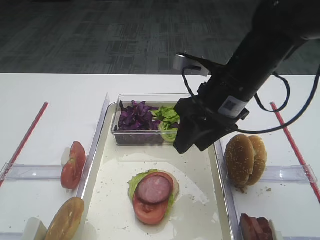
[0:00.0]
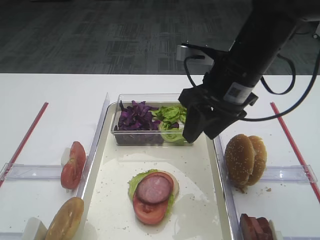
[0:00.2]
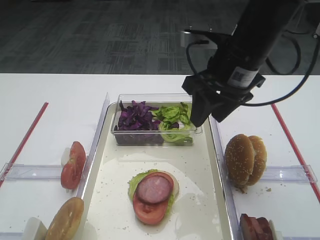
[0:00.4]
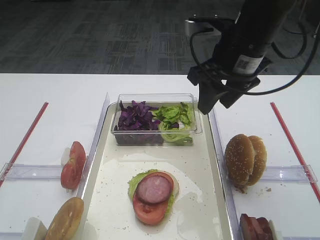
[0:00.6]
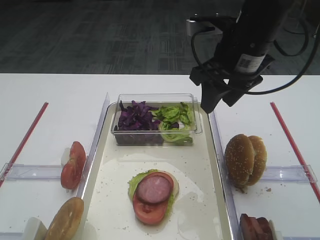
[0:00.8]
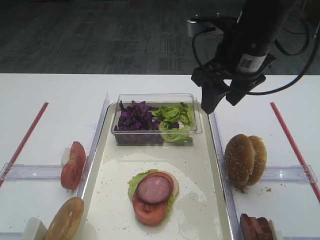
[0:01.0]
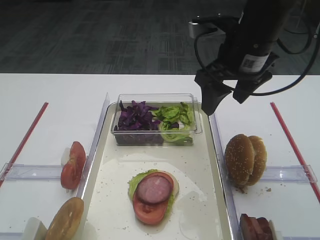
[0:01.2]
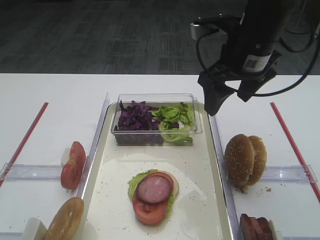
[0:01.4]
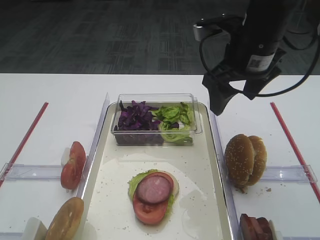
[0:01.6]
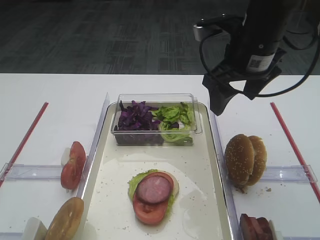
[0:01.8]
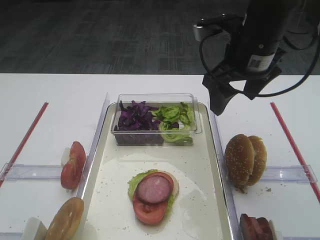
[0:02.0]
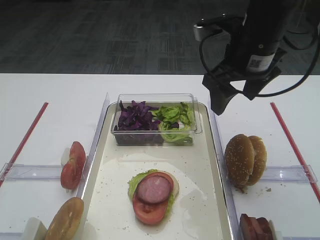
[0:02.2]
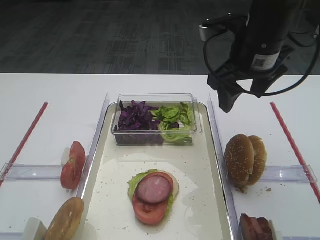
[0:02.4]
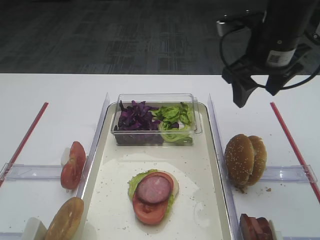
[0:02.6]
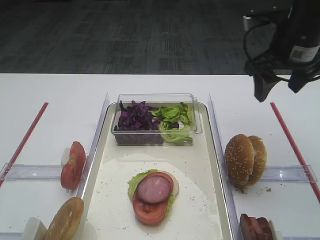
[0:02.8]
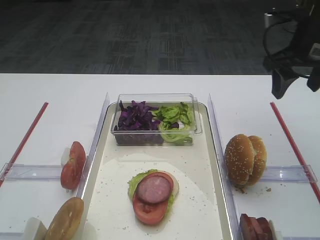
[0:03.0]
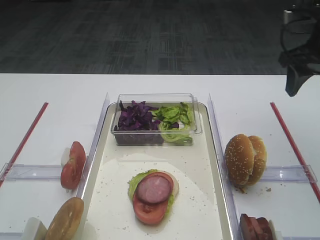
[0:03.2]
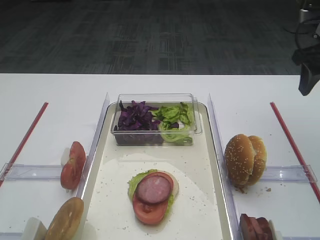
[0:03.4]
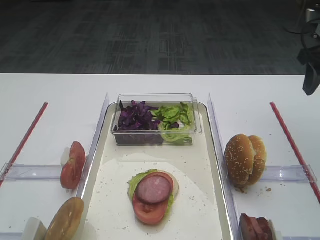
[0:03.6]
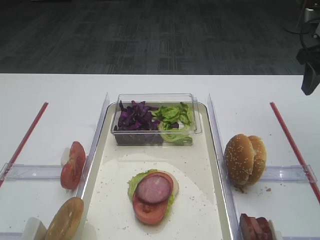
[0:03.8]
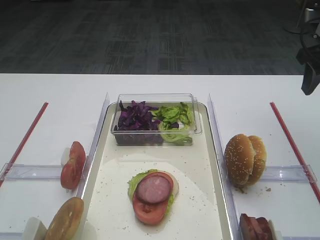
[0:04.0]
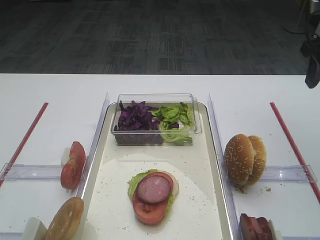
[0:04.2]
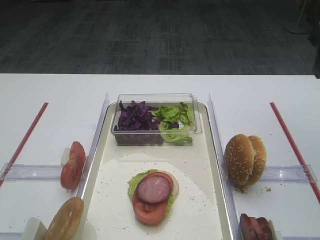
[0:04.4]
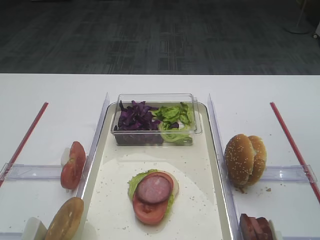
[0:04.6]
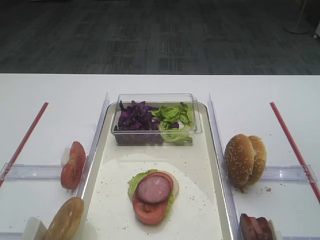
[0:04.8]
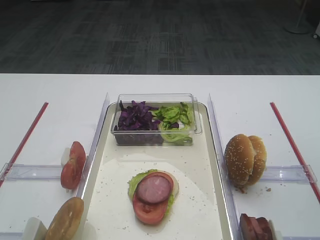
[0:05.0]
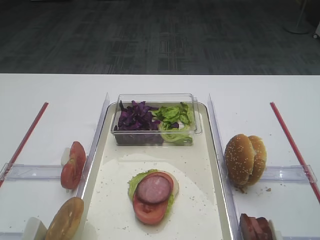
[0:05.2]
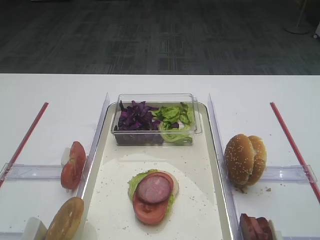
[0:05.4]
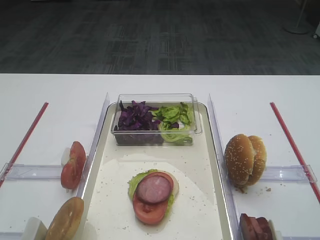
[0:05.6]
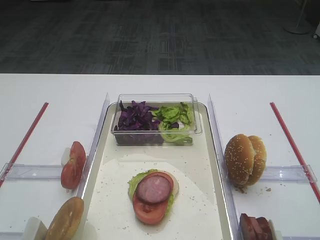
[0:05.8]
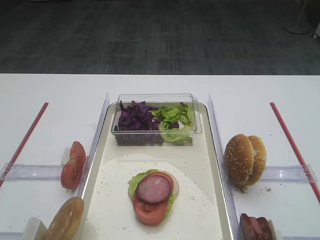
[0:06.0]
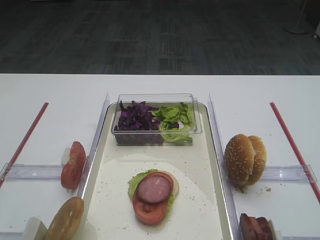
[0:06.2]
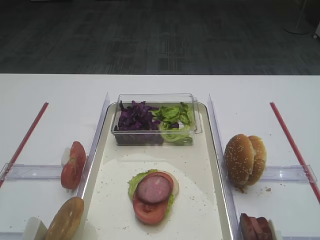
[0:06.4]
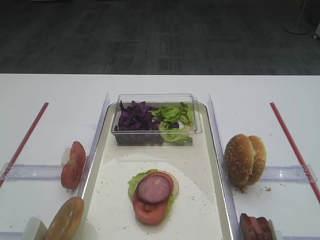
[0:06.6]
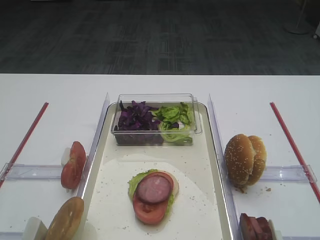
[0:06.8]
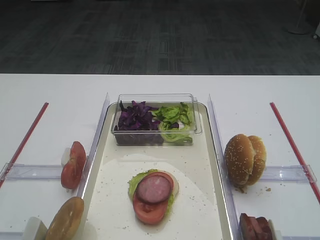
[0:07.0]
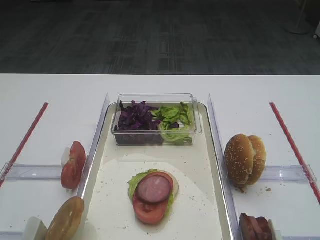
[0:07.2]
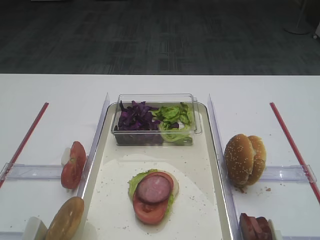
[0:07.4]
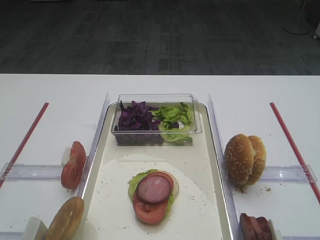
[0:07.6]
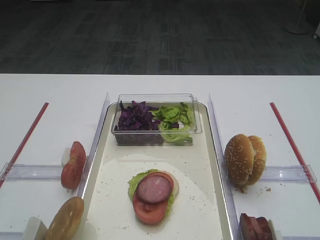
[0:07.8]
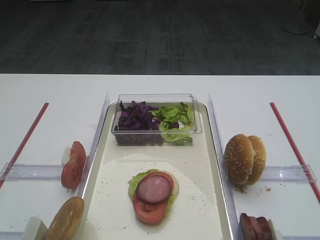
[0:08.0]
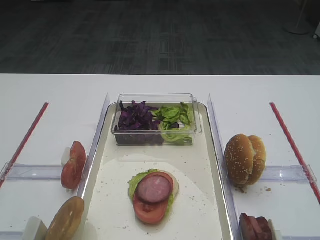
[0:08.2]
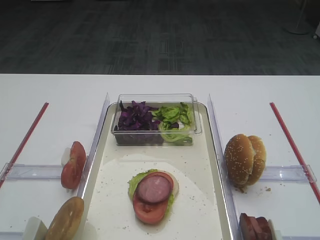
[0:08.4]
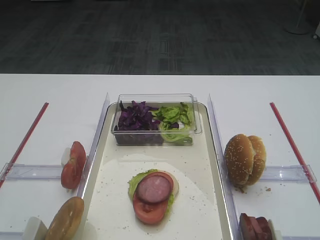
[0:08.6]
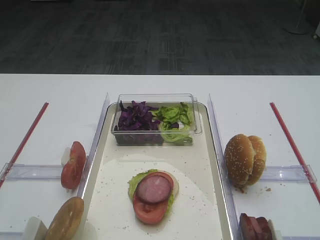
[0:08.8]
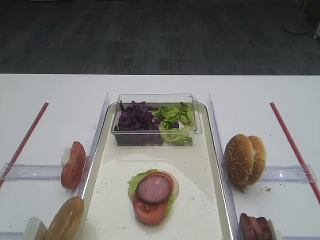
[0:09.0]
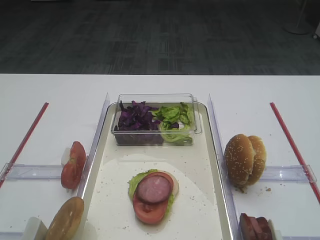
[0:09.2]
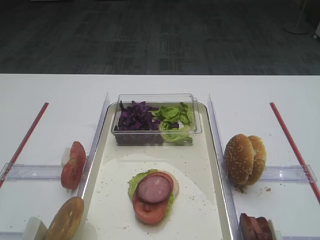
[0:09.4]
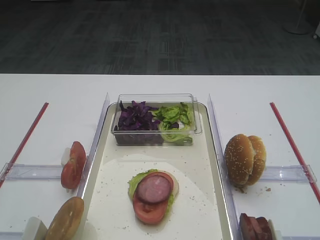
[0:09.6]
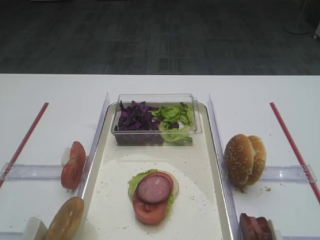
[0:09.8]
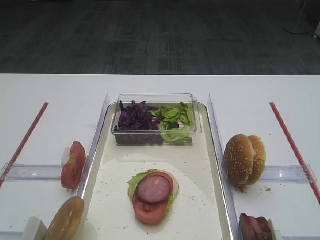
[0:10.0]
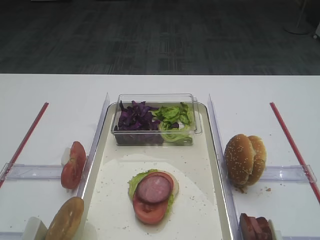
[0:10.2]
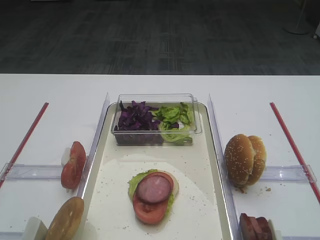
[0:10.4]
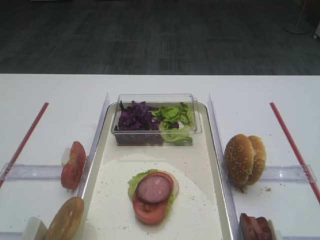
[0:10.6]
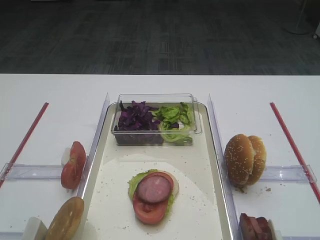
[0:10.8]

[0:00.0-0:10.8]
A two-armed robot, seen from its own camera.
0:00.0 to 0:01.6: The right gripper ends up approximately 5 cm from where it was, and opens.
0:01.6 to 0:03.0: The right gripper goes some 10 cm to the right.
0:03.0 to 0:04.6: The right gripper travels to the right by some 5 cm.
0:07.8 to 0:10.8: The two grippers keep their place.

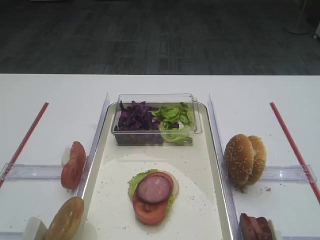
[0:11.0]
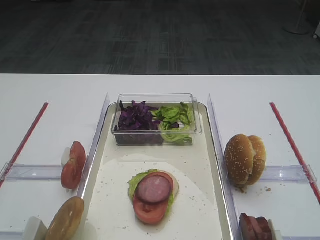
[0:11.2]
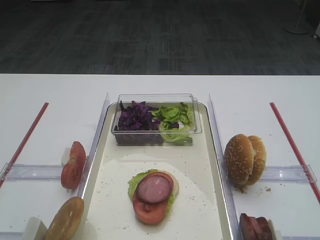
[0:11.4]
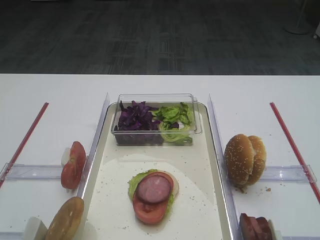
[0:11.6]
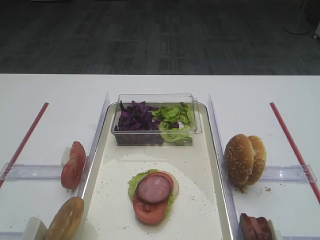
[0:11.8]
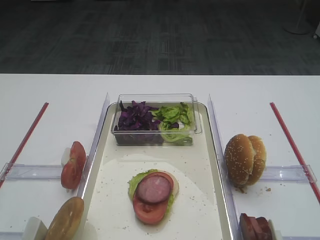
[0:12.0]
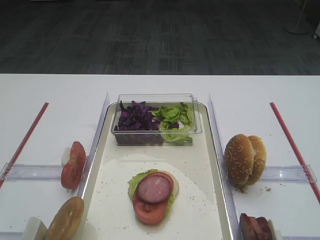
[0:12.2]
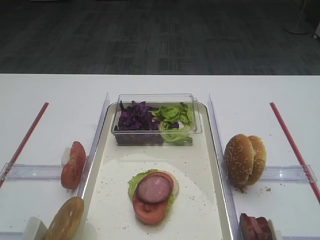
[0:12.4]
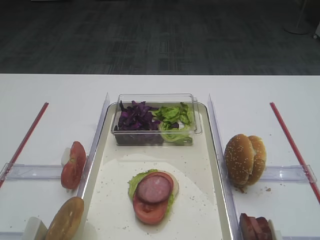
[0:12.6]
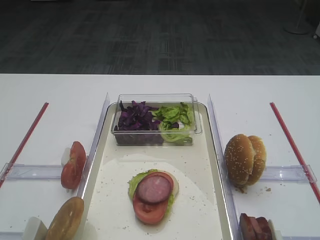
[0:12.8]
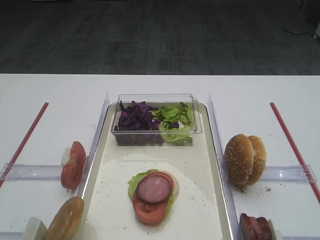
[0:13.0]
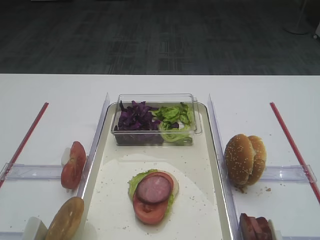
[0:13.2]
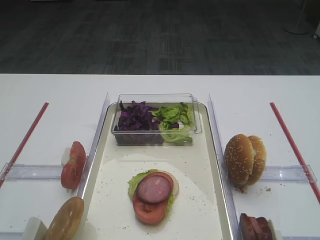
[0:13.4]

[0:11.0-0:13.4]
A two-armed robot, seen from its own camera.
0:11.0 to 0:13.4: The two grippers keep their place.

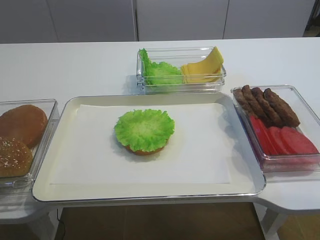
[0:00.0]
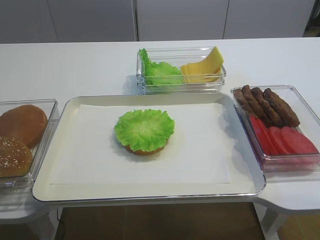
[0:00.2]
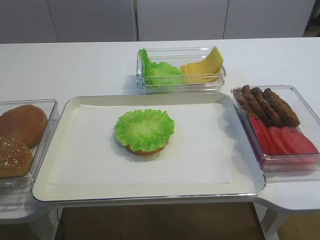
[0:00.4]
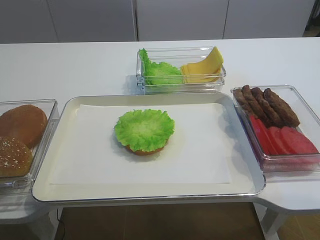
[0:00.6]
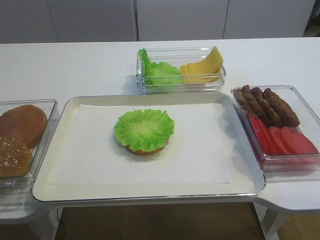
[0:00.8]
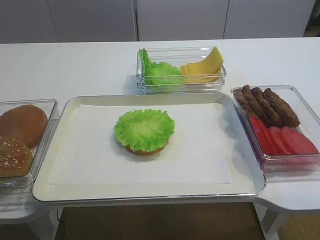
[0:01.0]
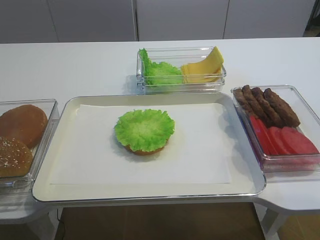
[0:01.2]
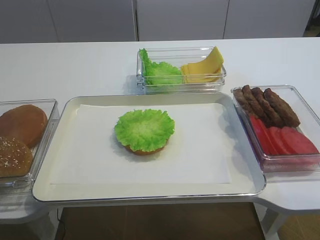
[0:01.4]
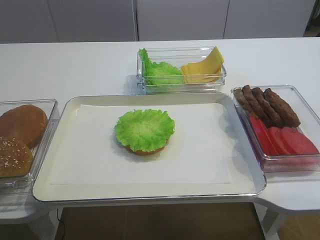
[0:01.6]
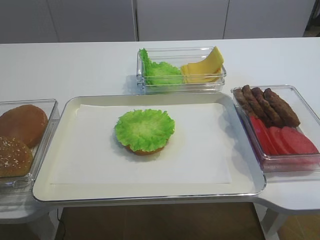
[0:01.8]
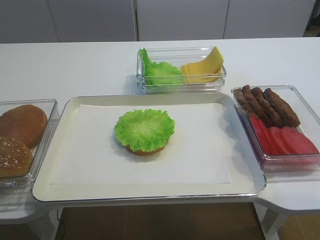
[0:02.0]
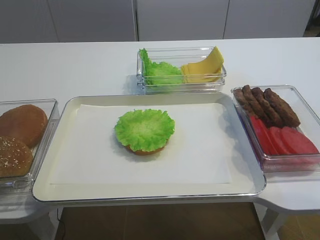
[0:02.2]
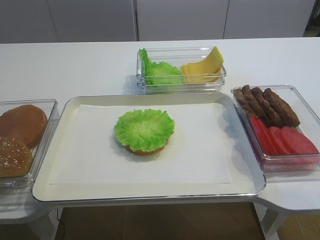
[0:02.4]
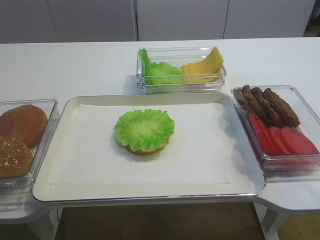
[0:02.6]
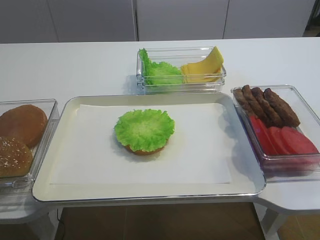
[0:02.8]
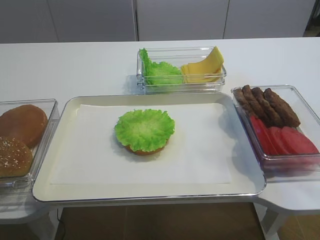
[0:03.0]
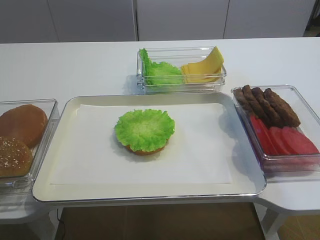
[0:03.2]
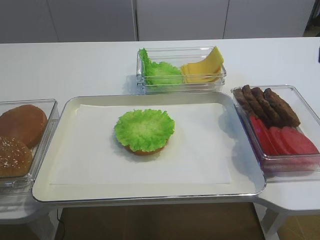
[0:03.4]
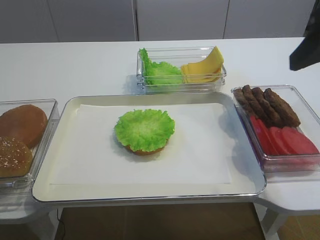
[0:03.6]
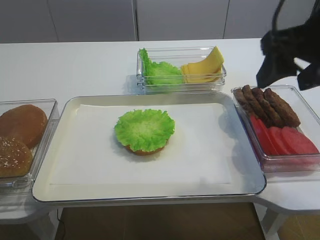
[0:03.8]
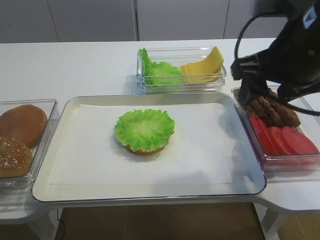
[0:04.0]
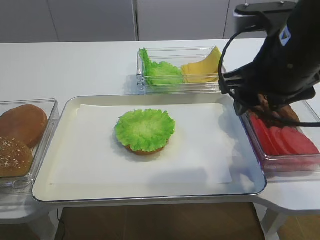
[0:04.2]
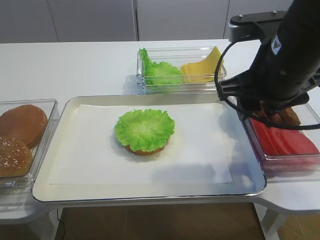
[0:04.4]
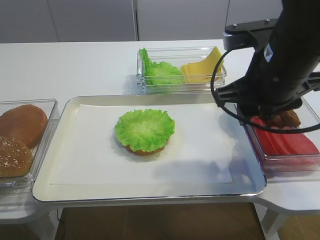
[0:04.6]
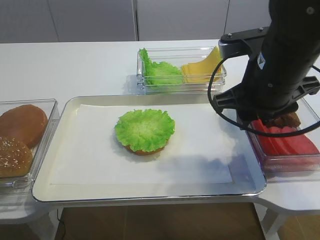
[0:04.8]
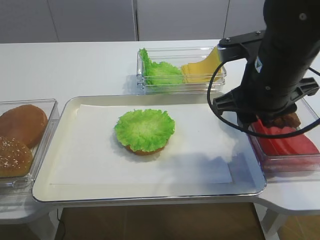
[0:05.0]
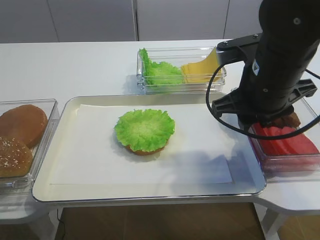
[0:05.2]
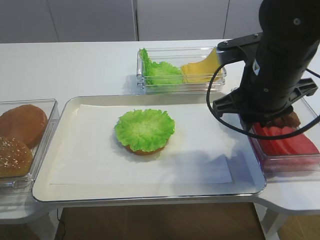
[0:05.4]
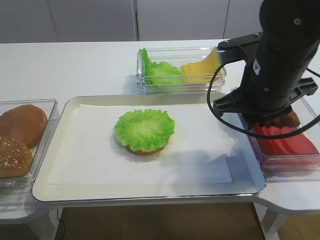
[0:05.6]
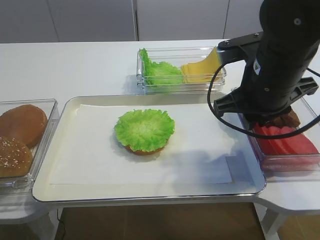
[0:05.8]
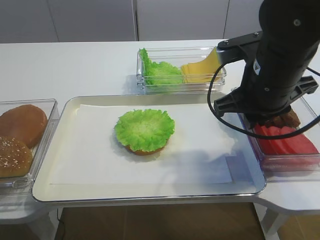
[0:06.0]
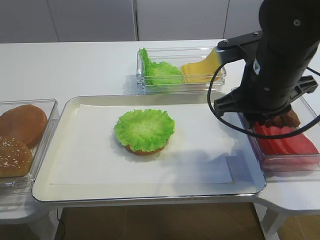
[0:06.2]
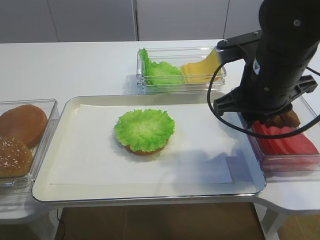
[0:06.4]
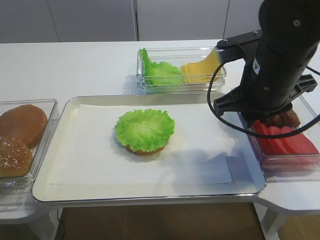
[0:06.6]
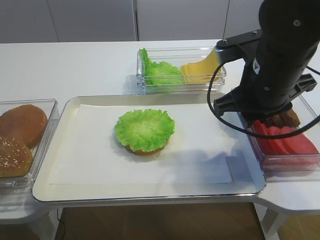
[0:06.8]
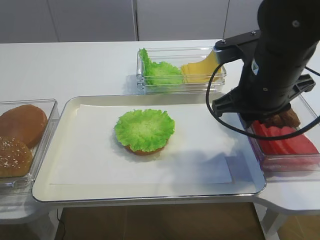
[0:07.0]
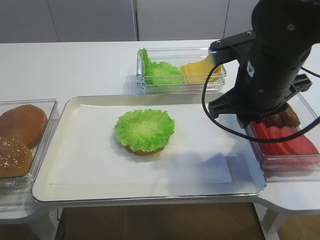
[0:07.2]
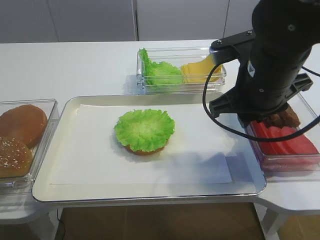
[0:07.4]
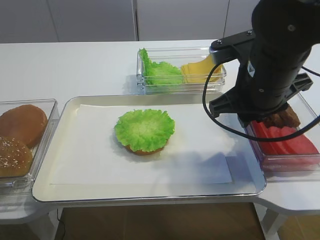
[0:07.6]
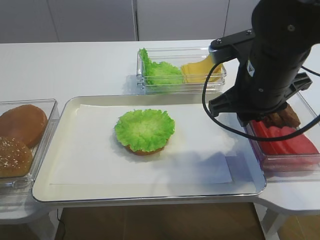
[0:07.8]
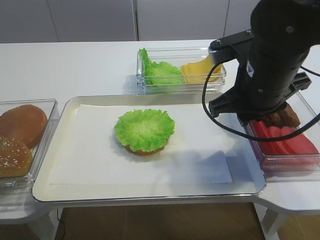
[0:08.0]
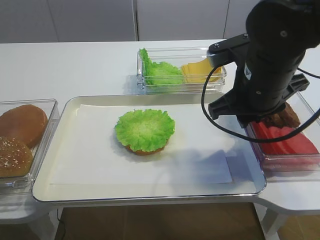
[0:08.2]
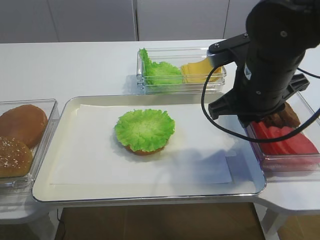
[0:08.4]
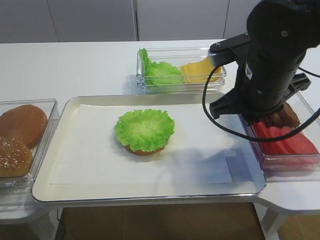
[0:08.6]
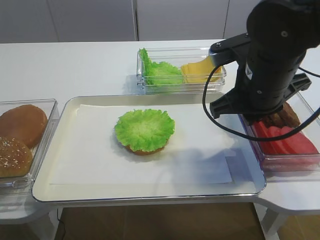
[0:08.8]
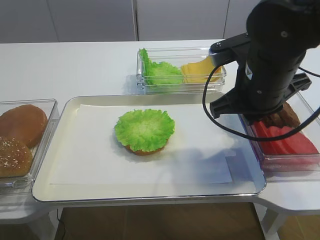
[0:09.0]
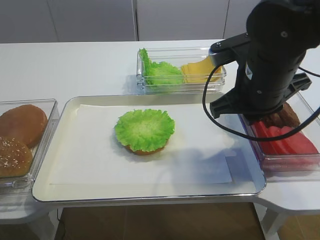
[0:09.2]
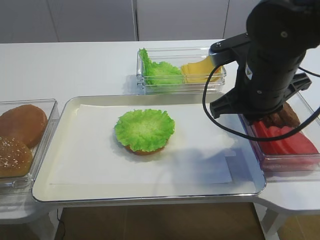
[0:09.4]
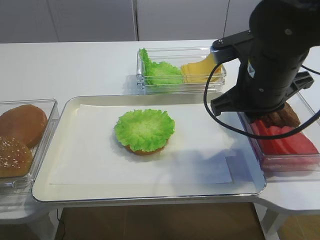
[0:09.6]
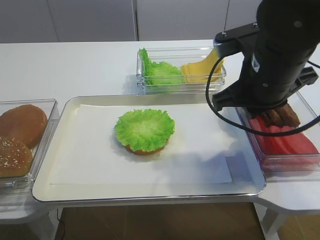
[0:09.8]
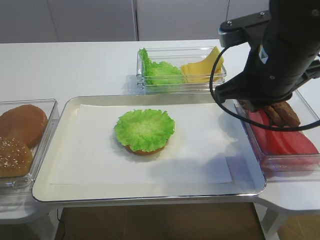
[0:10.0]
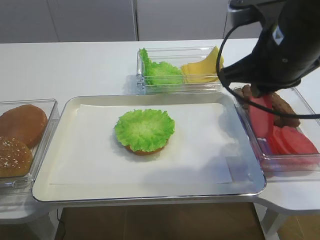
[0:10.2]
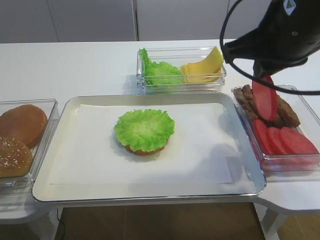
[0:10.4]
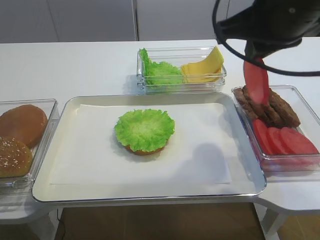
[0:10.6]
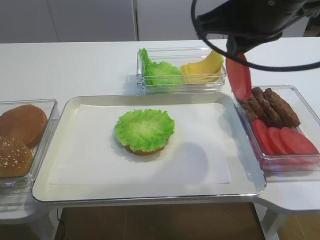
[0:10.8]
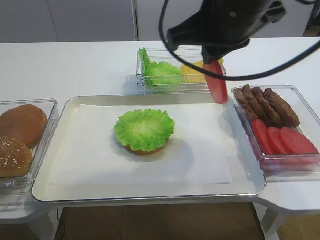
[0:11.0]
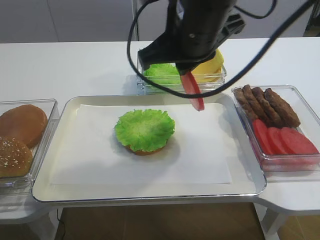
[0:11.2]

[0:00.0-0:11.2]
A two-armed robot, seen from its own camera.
Step, 0:00.0 to 0:10.2: Pick up the tomato slice with the right gripper.
0:01.6 to 0:03.2: The right gripper goes approximately 15 cm forward and upward.
0:03.2 to 0:04.8: The right gripper shifts some 20 cm forward, to the left and downward, and closes.
0:04.8 to 0:06.4: Both grippers stay put.
0:06.4 to 0:09.6: Both grippers stay about where they are.
0:09.6 to 0:11.2: The right gripper goes about 10 cm to the left and upward.
